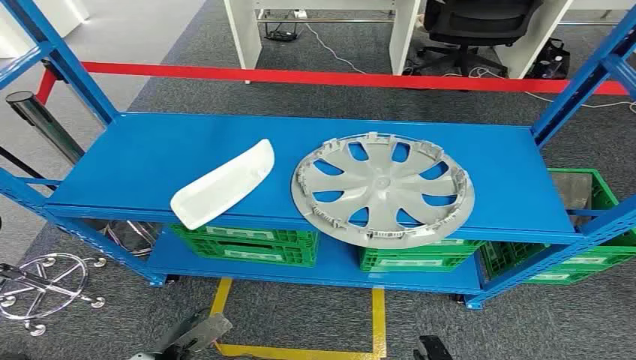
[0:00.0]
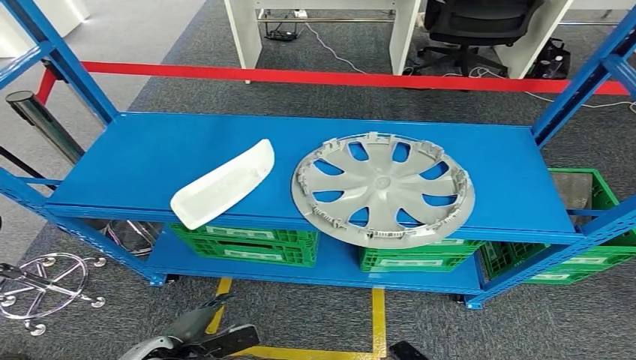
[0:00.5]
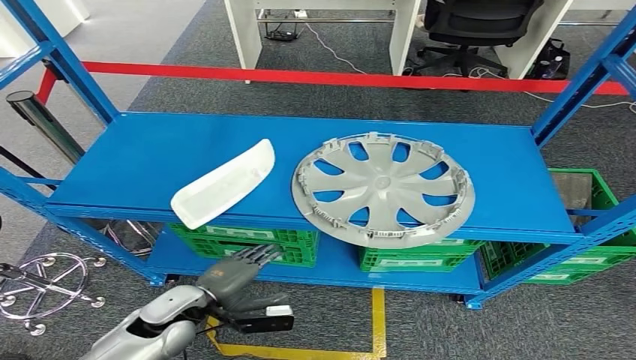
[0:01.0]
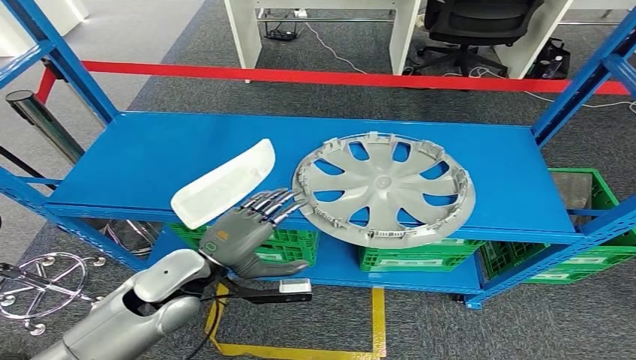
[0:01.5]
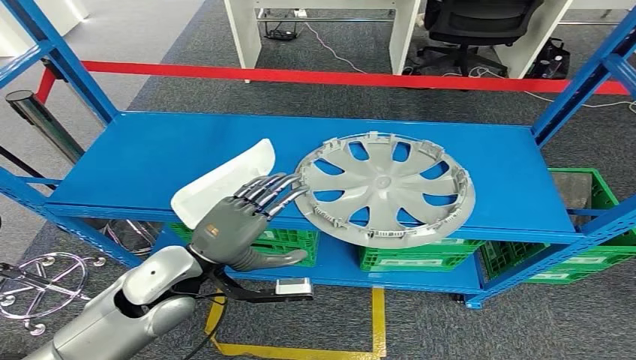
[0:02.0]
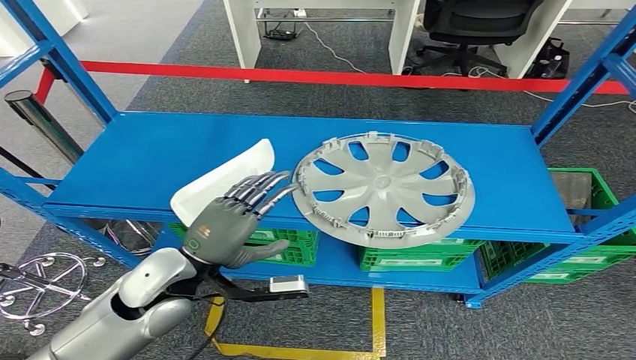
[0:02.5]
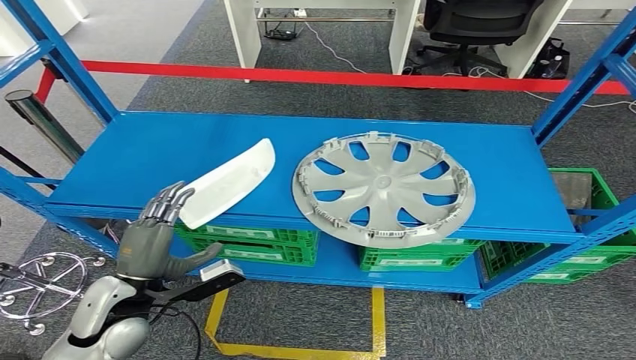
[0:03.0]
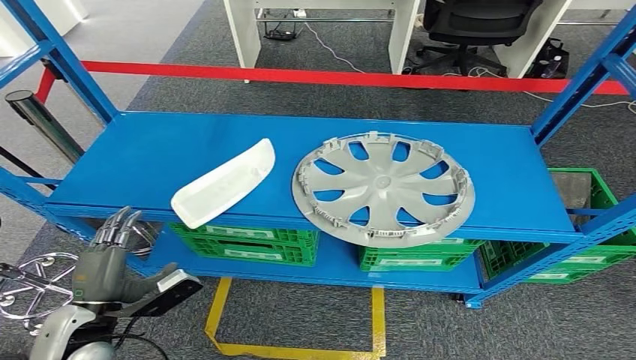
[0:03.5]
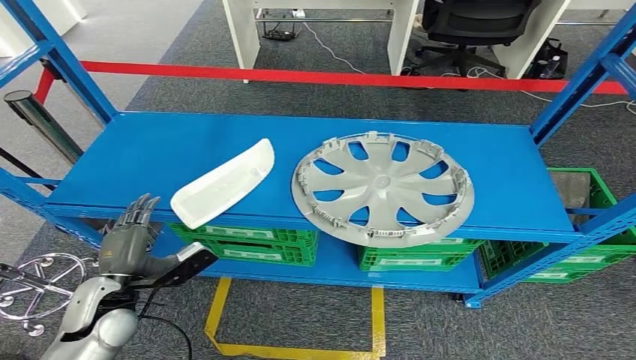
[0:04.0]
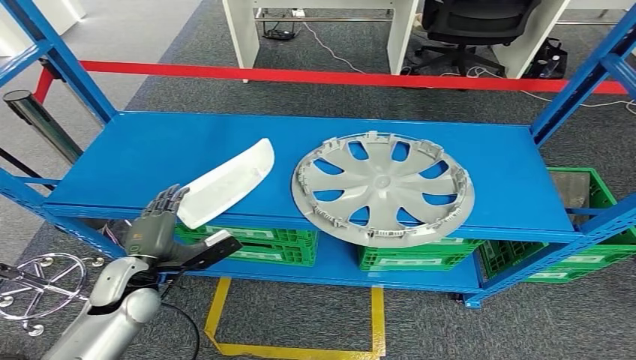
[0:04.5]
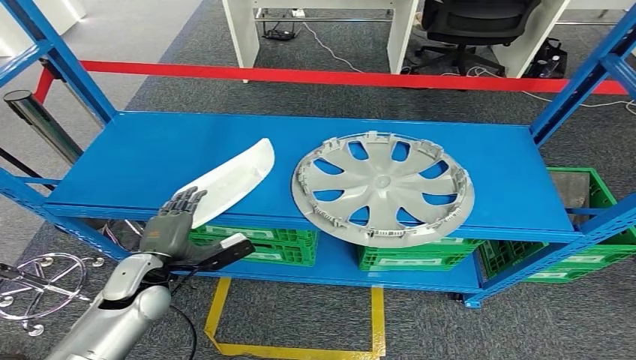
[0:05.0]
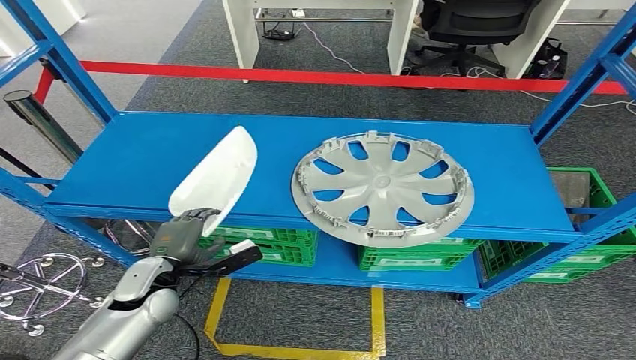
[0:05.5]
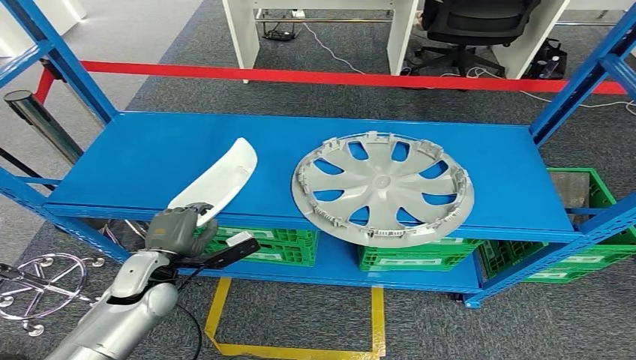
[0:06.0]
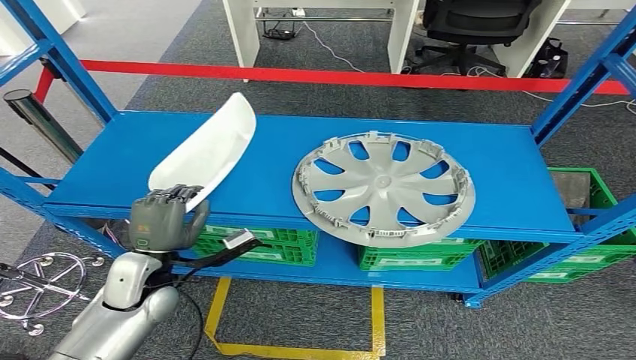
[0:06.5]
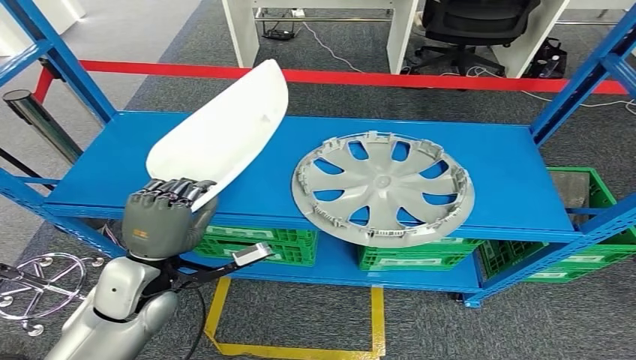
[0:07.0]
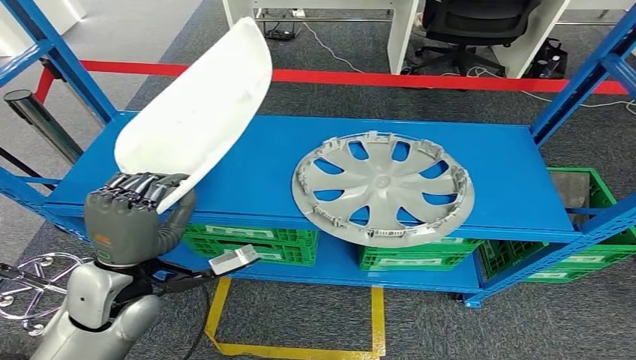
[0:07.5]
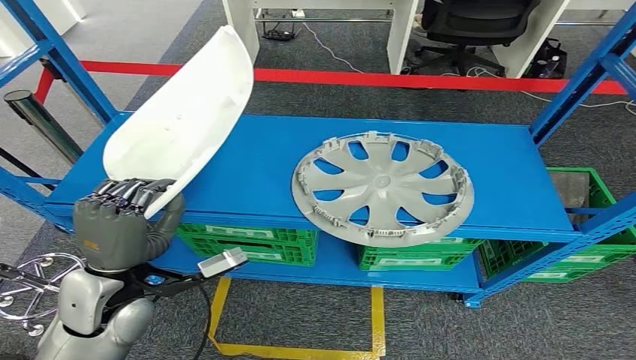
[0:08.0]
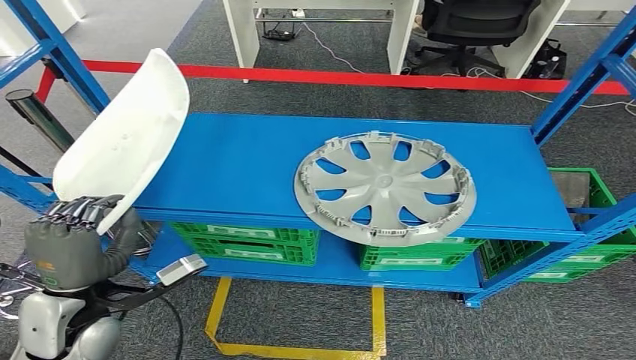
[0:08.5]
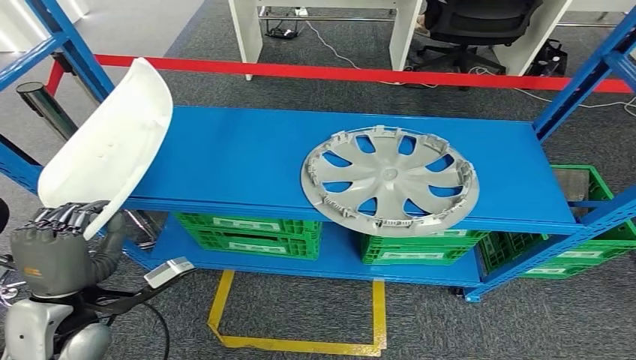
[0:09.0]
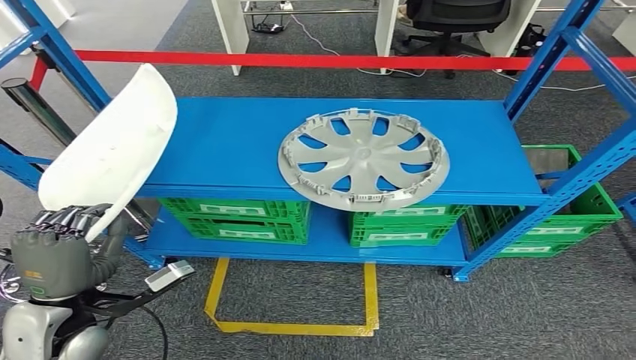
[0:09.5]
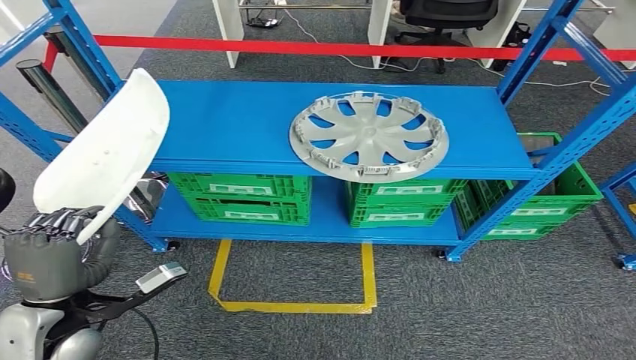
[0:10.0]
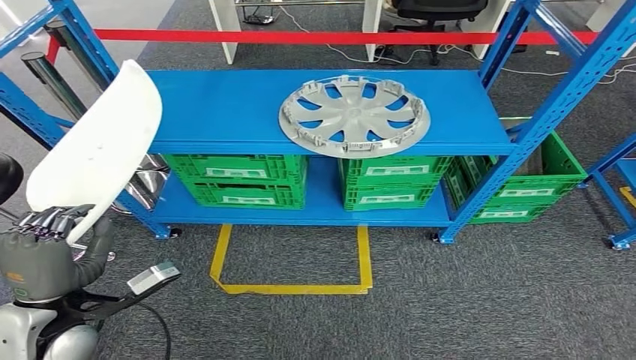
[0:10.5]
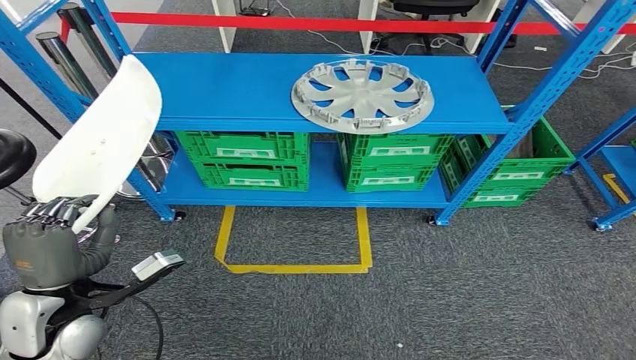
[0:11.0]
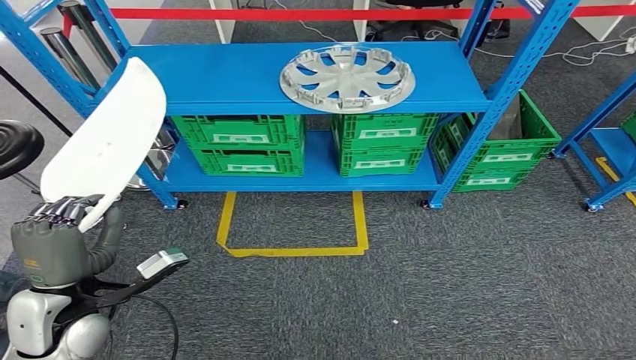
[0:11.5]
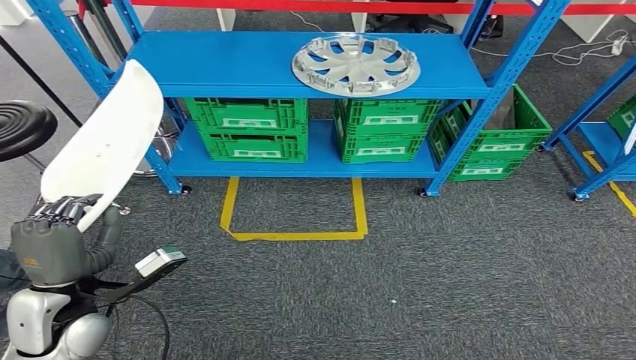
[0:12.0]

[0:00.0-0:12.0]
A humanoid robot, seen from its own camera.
Step, 0:00.0 to 0:07.0: Pick up the small parts from the shelf.
0:02.0 to 0:04.0: The left hand moves to the left and downward, approximately 15 cm.
0:04.0 to 0:06.0: The left hand moves forward and to the right, approximately 5 cm.
0:06.0 to 0:08.0: The left hand heads upward and backward, covering roughly 15 cm.

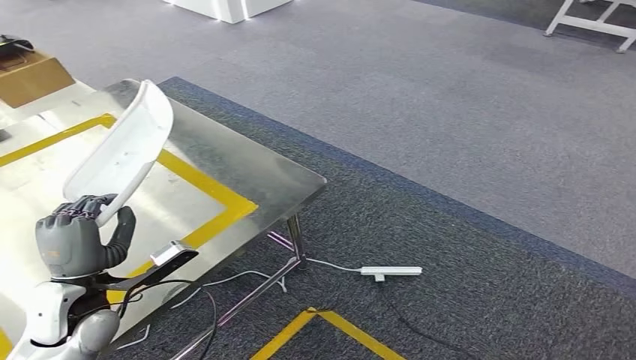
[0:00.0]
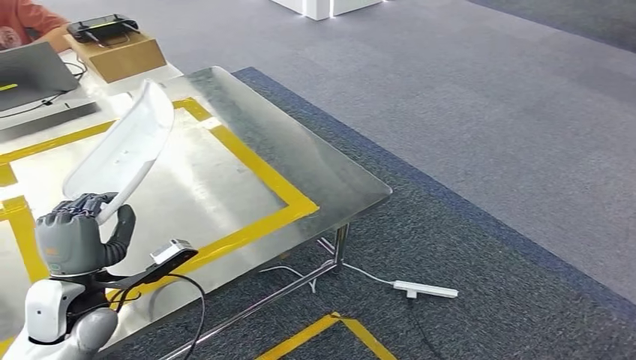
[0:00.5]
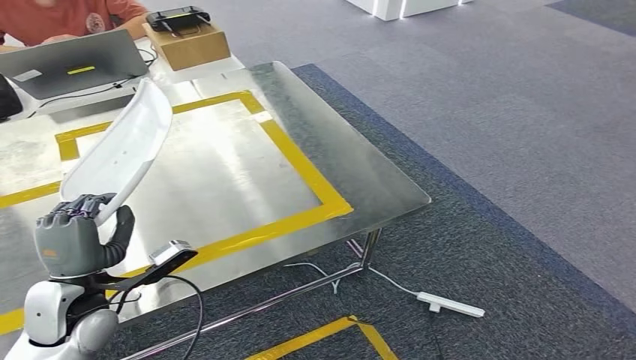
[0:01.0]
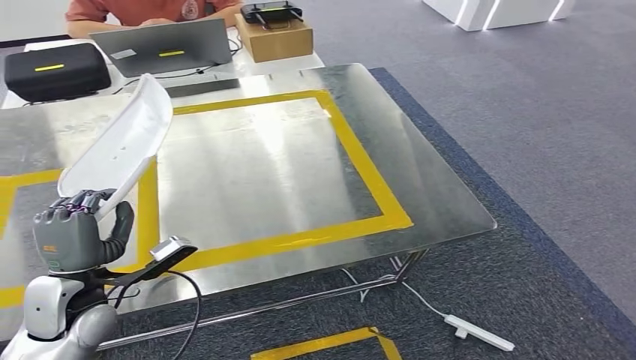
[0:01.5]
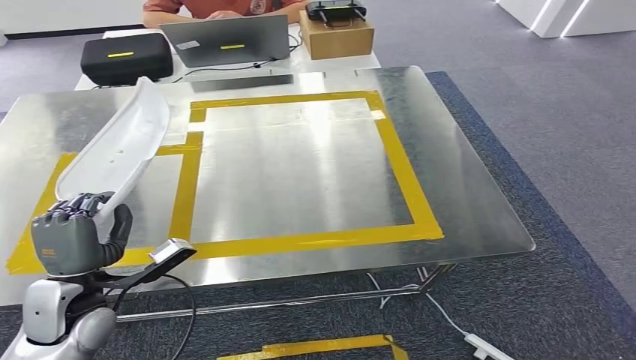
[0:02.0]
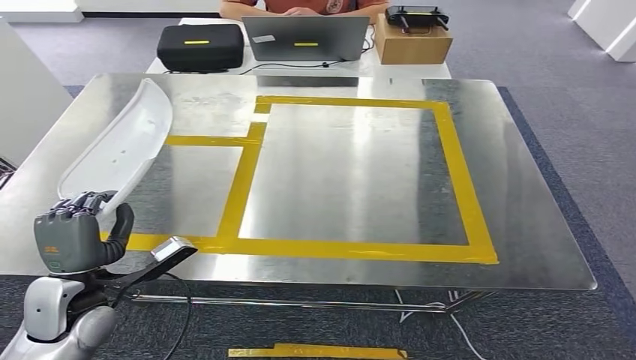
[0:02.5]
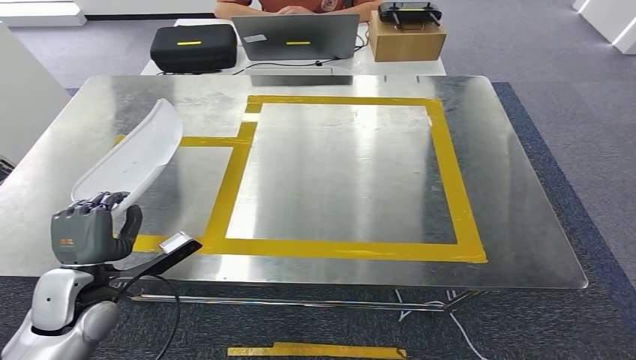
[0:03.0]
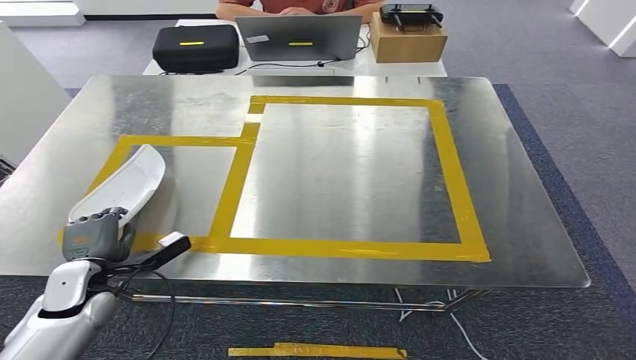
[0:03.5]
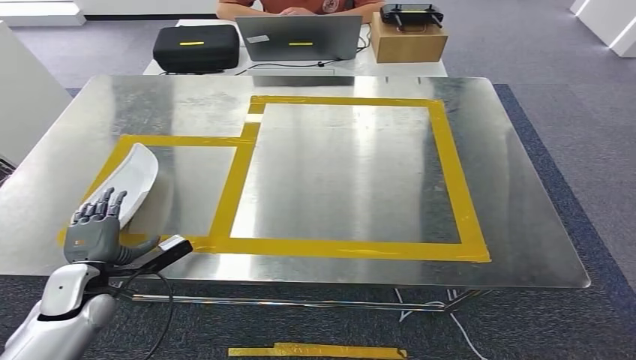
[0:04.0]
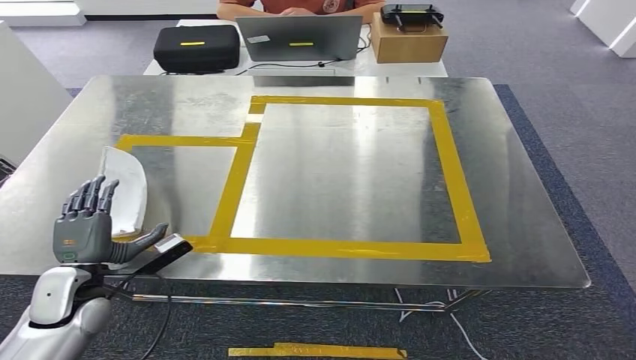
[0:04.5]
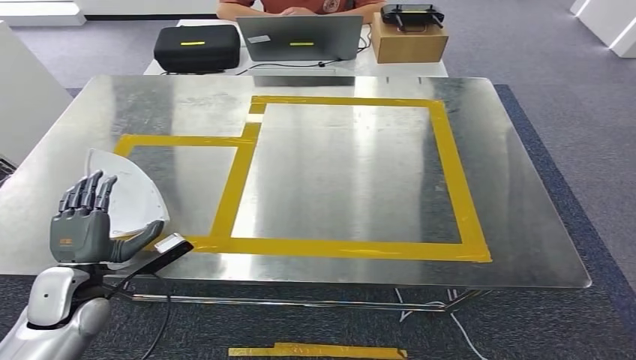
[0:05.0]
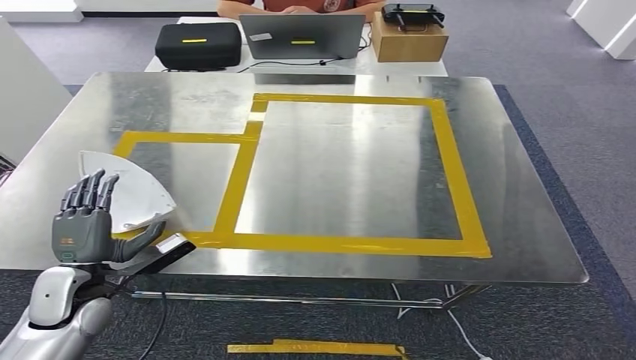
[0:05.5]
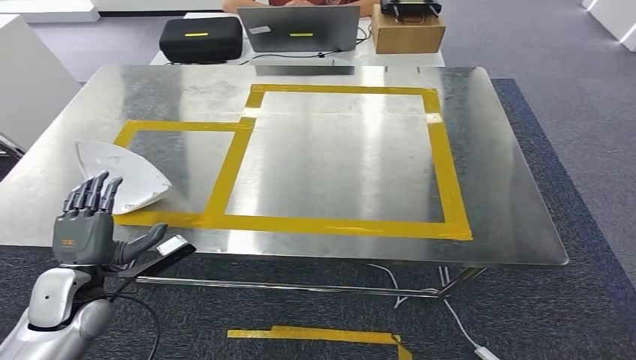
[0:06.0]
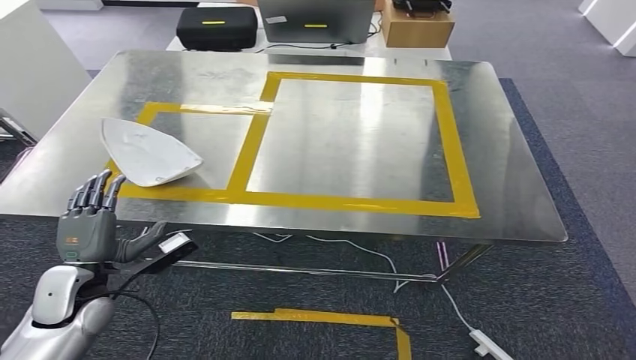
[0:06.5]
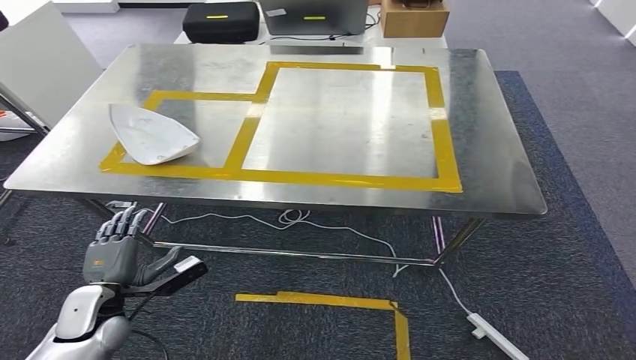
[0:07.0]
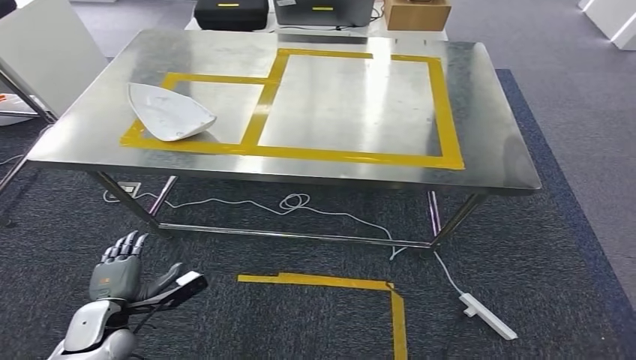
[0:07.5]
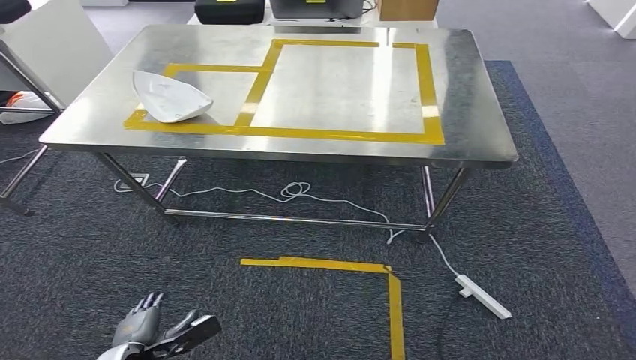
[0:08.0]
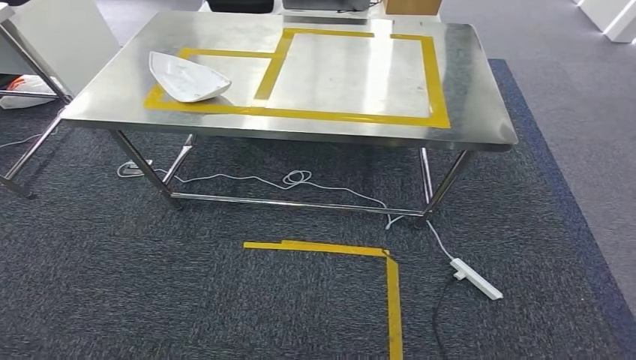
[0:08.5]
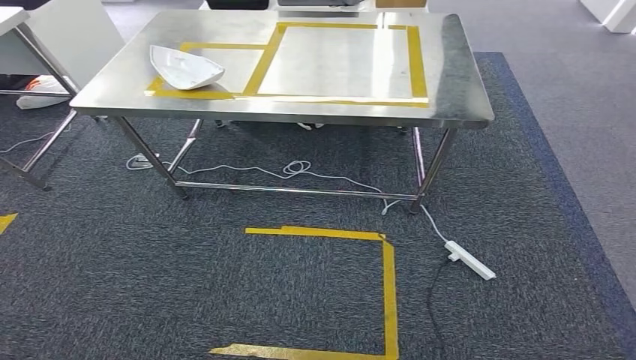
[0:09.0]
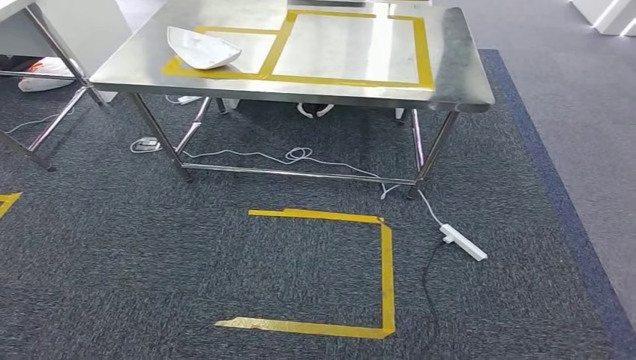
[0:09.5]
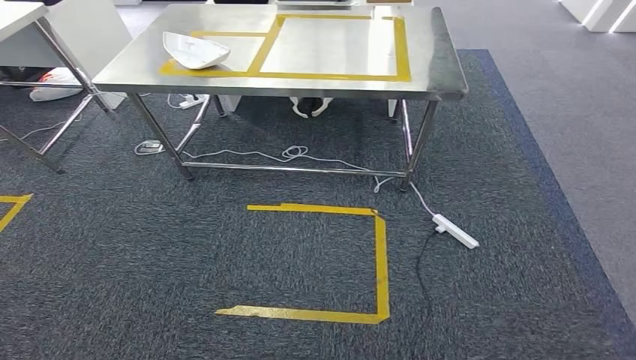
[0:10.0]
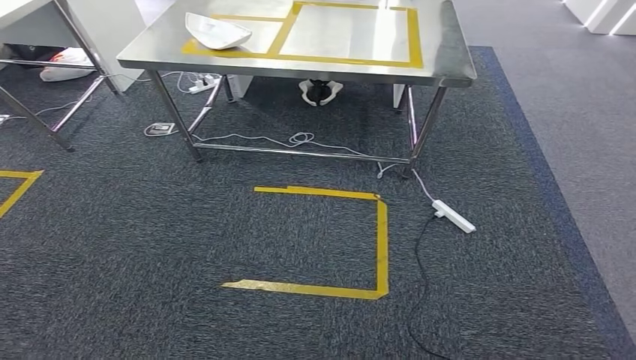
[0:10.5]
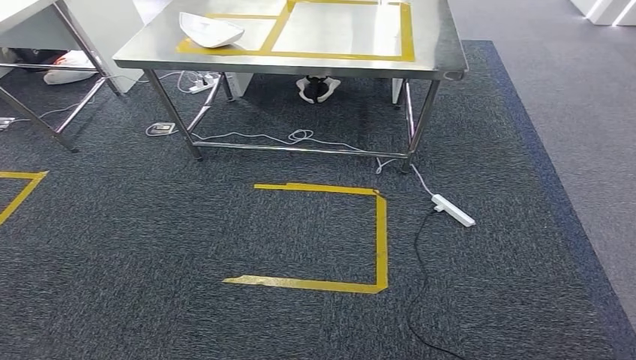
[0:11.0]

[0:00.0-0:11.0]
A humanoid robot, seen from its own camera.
Step, 0:02.0 to 0:06.0: Insert the small parts into the corresponding holes on the workbench.
